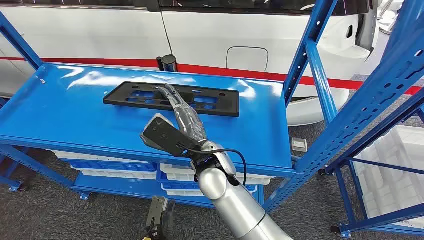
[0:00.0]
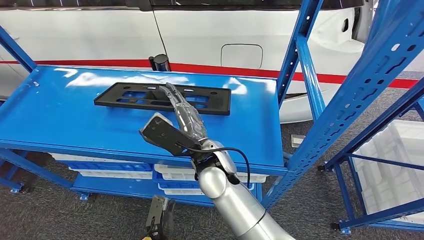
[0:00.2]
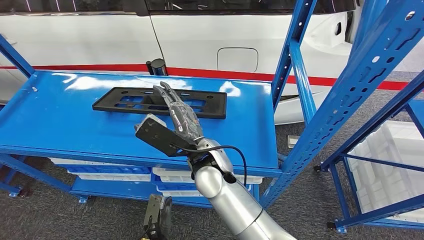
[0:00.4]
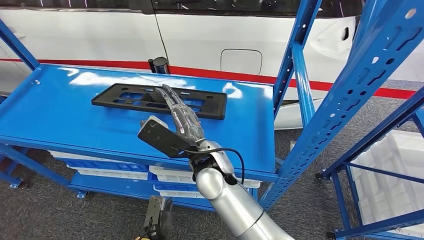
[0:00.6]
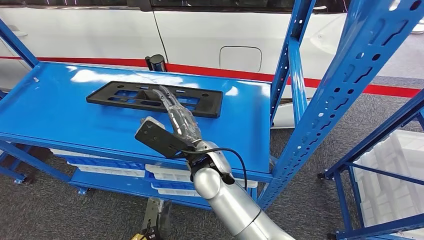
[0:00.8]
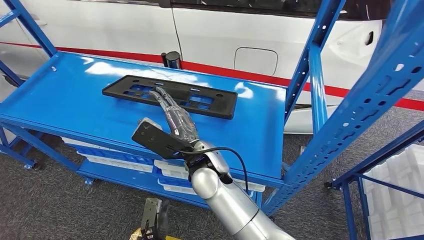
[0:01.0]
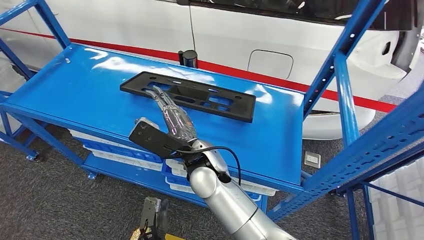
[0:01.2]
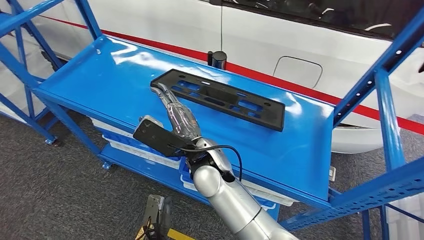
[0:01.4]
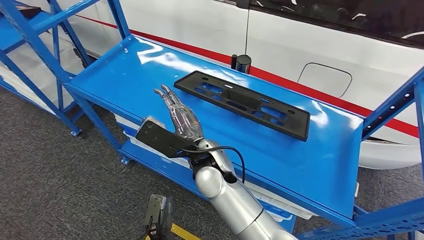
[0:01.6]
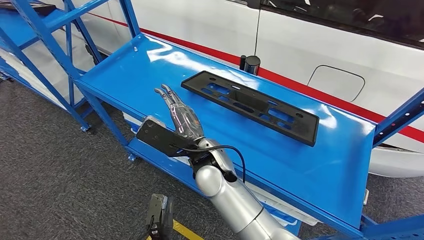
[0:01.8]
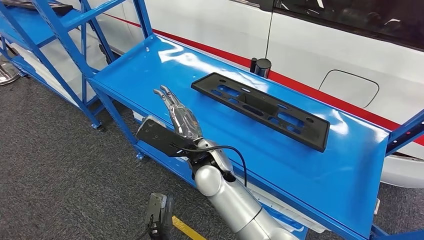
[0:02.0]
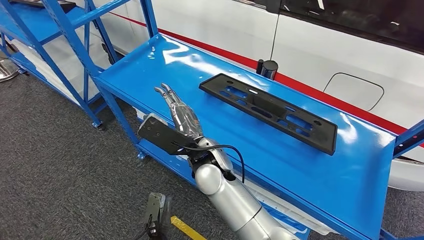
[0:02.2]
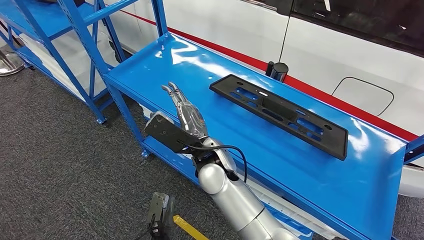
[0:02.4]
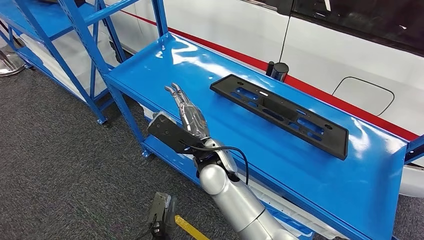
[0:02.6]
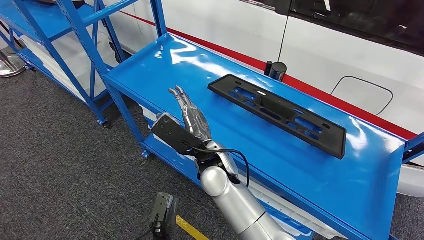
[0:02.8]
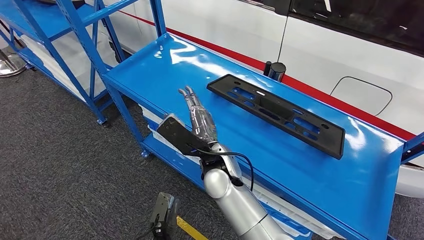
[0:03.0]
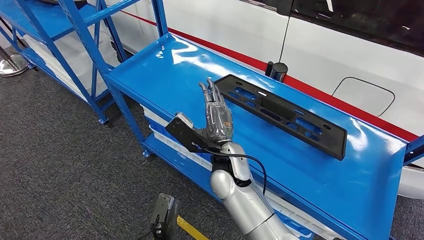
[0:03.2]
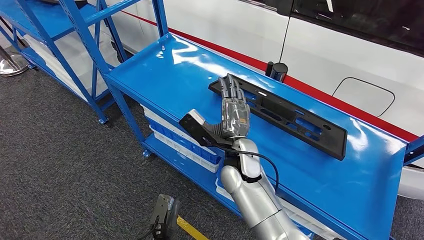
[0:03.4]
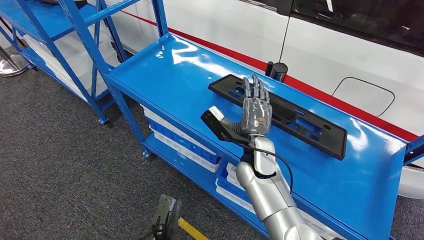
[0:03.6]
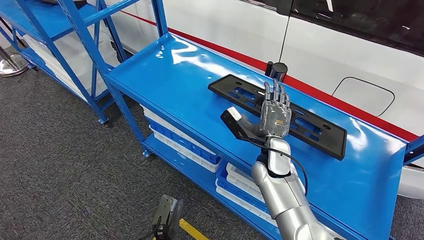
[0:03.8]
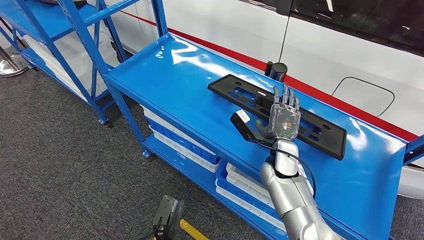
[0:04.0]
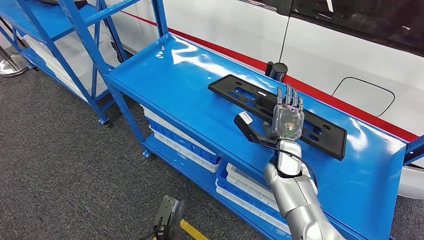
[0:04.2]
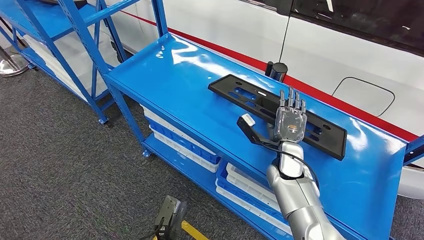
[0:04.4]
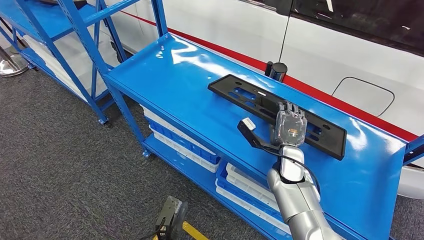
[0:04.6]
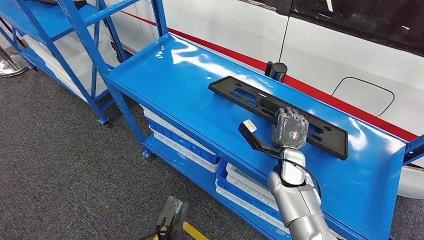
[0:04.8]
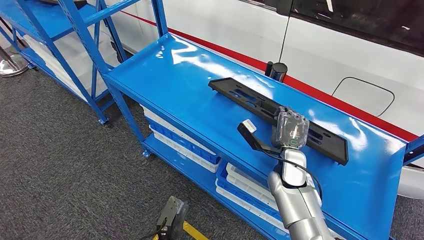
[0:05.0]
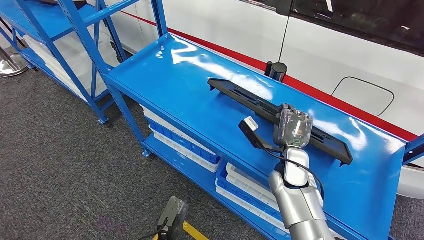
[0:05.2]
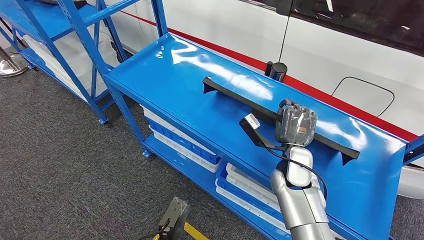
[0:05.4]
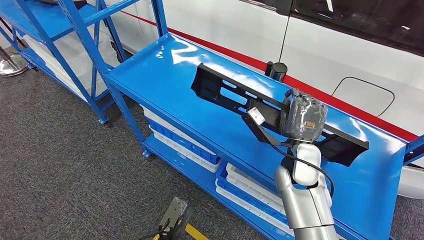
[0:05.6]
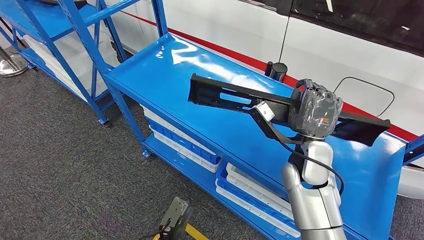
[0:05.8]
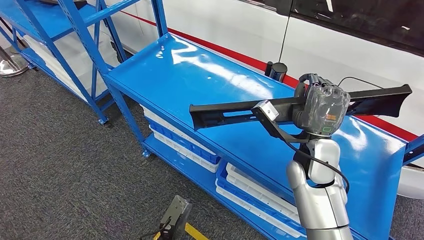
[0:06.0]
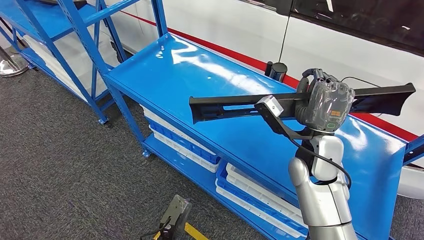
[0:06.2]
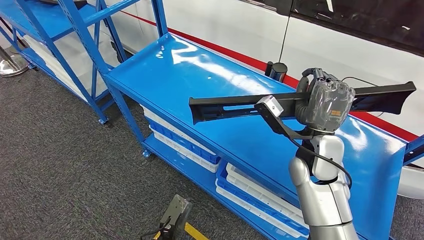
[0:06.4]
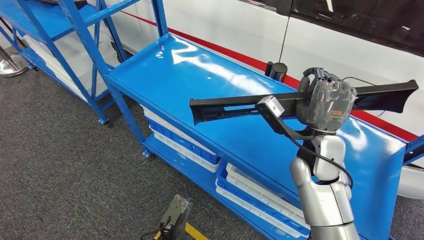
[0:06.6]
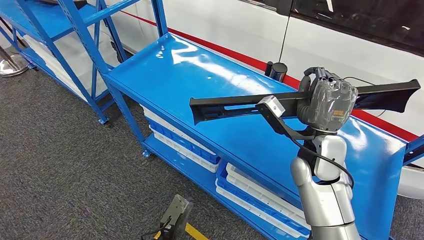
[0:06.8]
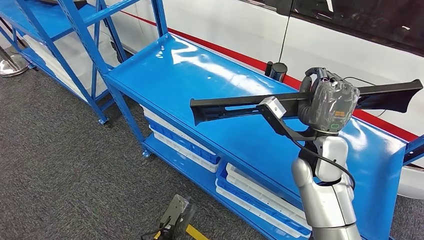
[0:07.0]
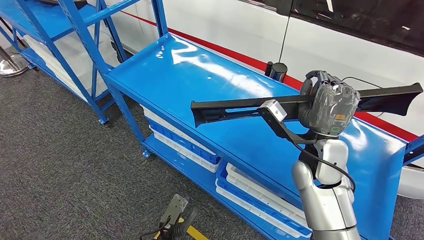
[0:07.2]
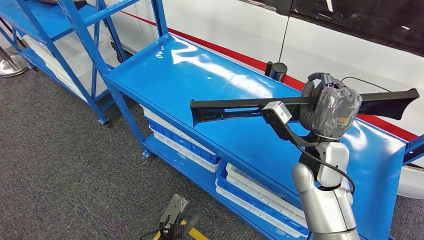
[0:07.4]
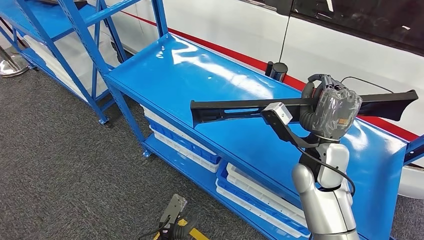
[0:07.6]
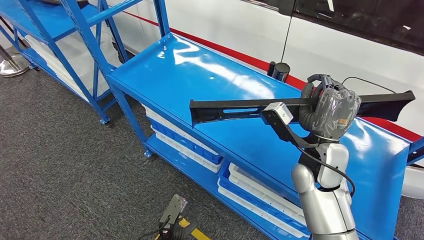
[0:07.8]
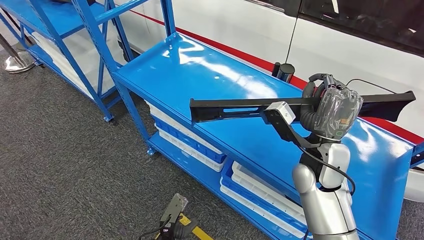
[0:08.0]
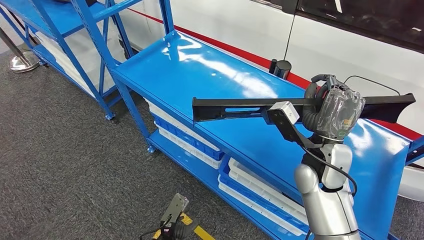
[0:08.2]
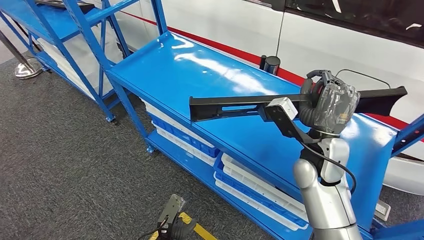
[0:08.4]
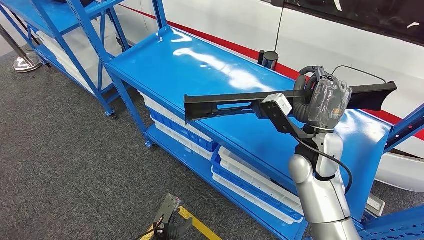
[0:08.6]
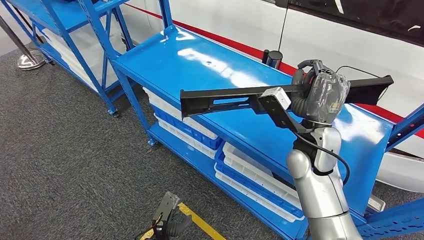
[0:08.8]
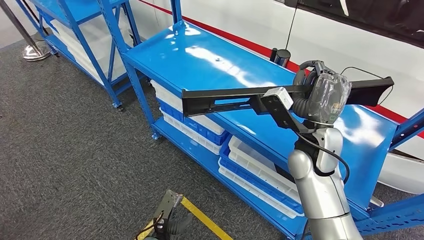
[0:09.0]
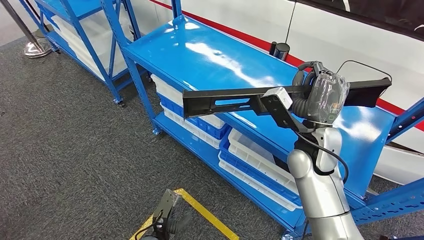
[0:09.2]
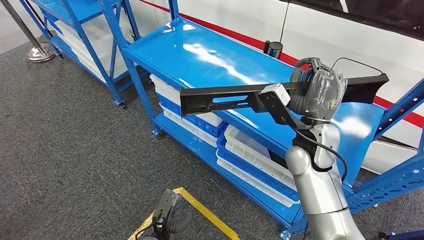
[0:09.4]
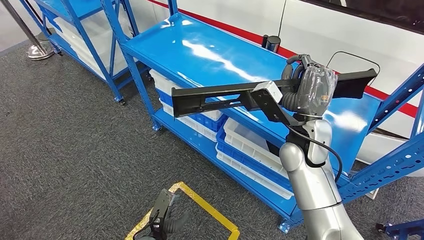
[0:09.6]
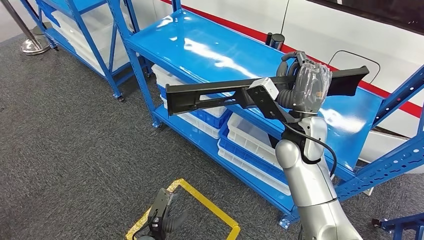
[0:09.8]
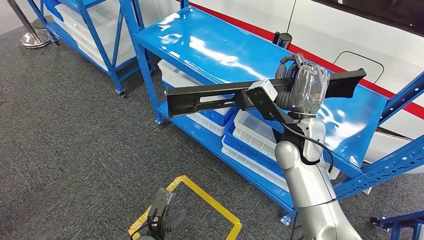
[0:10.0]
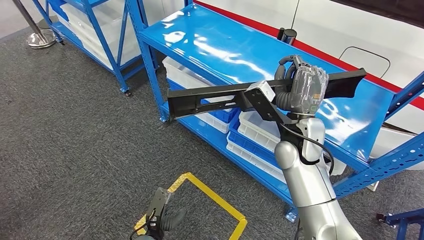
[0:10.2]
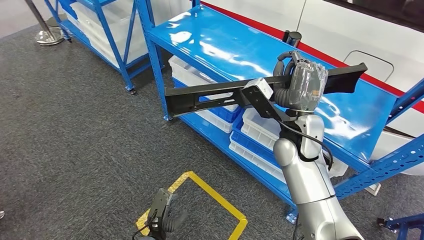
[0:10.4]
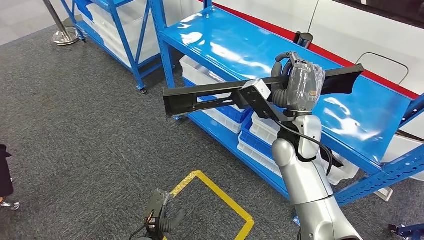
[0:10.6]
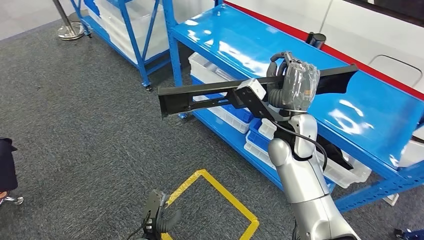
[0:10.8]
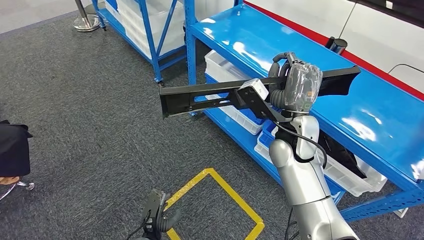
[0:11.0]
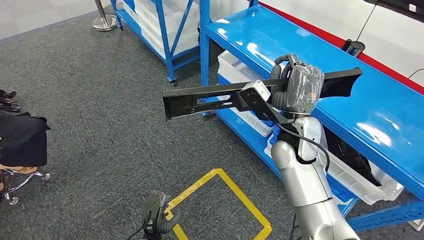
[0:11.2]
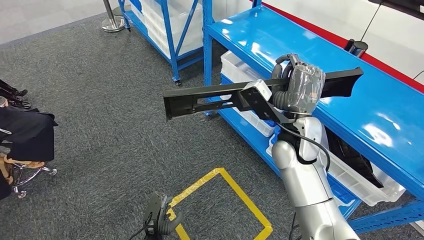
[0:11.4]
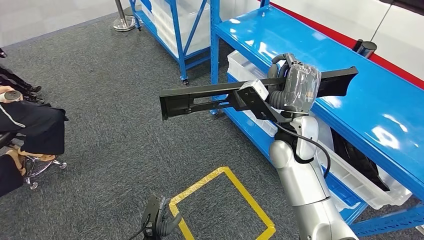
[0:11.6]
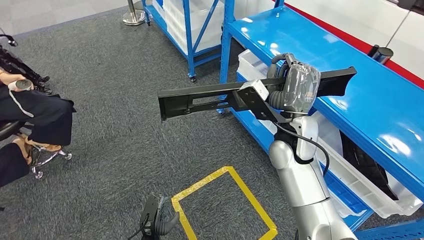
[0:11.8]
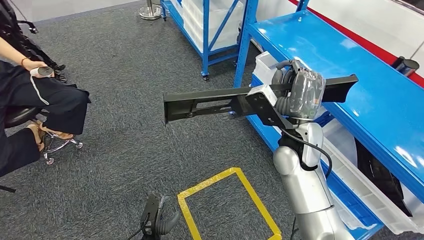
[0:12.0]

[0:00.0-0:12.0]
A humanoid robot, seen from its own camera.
Step, 0:00.0 to 0:07.6: Pick up the large material from the shelf.
0:03.0 to 0:04.4: The right hand moves to the right and forward, some 20 cm.
0:04.4 to 0:06.0: The right hand moves upward, about 10 cm.
0:06.0 to 0:07.6: The hands stay close to where they were, moving slightly.

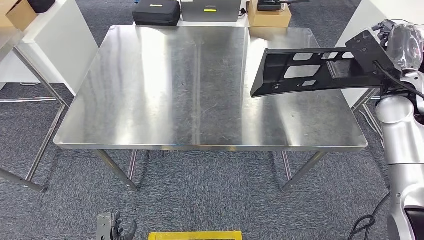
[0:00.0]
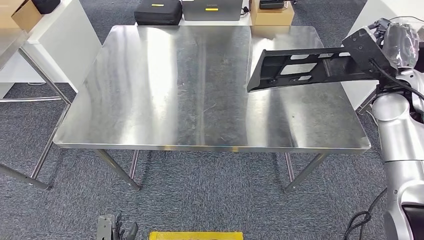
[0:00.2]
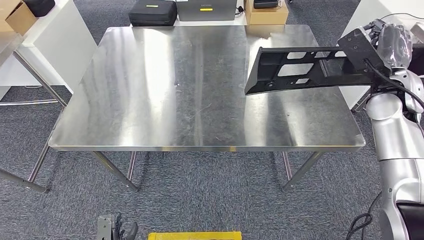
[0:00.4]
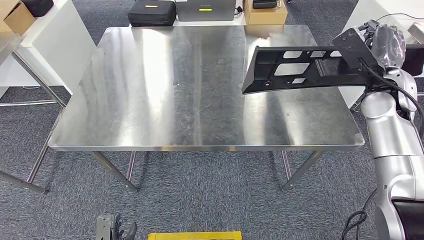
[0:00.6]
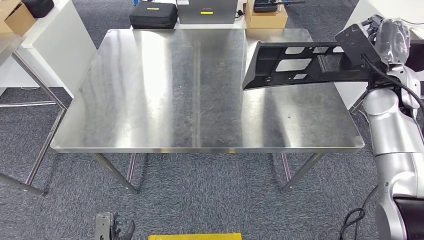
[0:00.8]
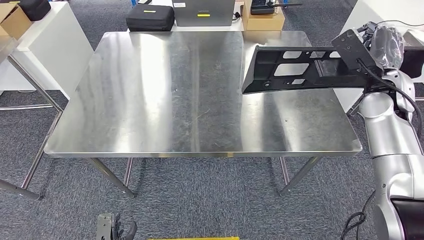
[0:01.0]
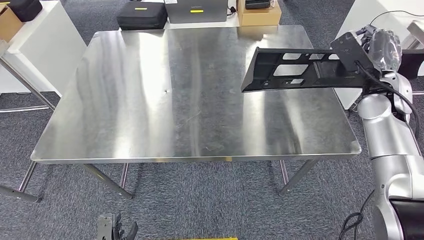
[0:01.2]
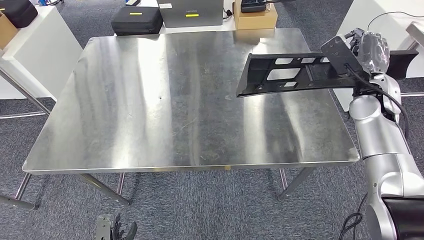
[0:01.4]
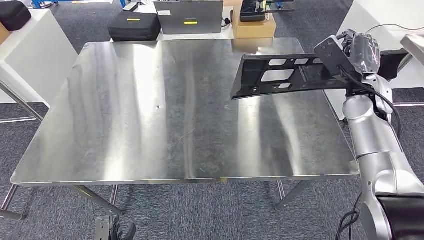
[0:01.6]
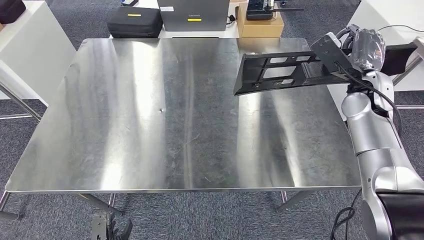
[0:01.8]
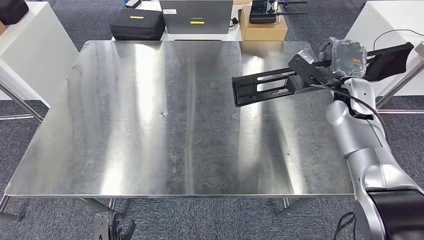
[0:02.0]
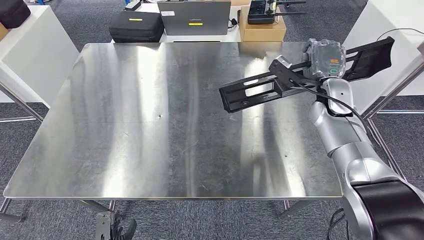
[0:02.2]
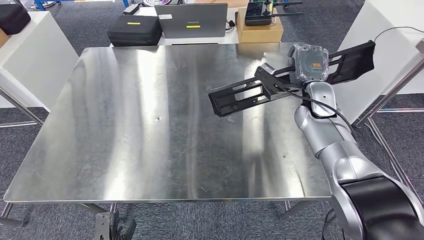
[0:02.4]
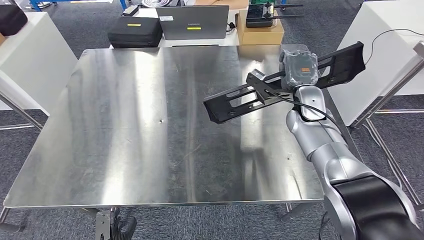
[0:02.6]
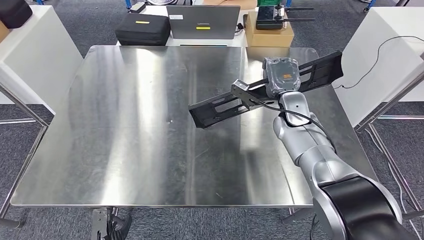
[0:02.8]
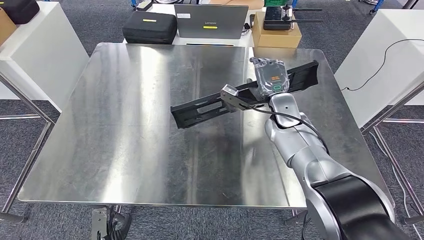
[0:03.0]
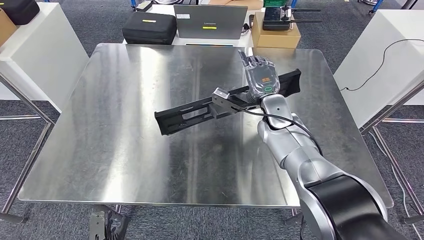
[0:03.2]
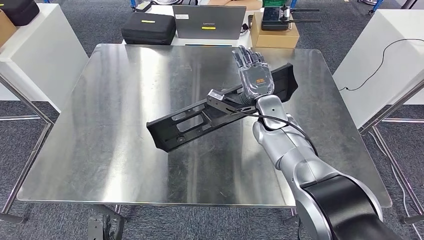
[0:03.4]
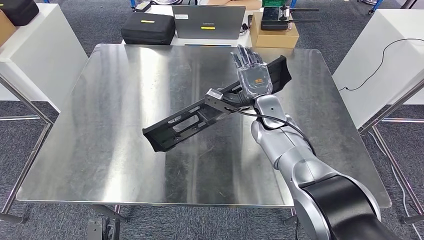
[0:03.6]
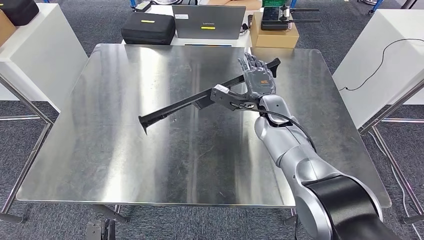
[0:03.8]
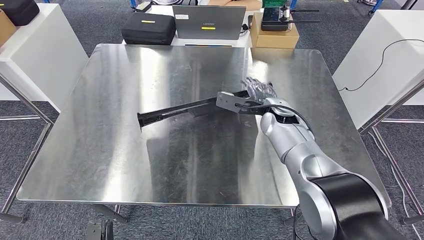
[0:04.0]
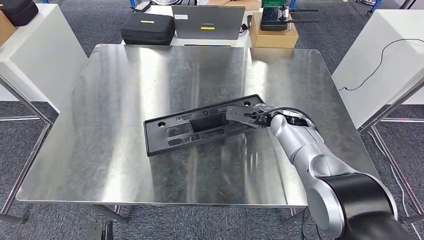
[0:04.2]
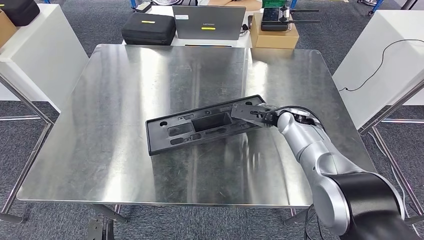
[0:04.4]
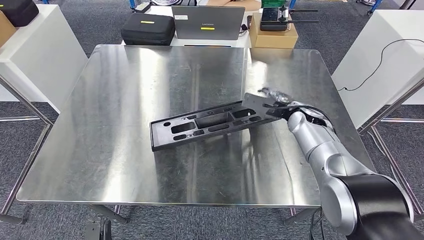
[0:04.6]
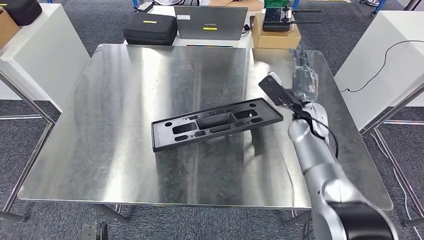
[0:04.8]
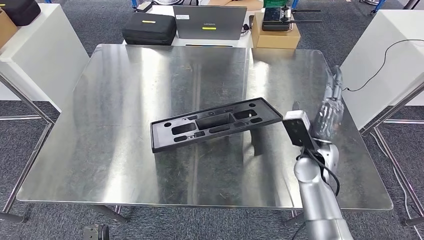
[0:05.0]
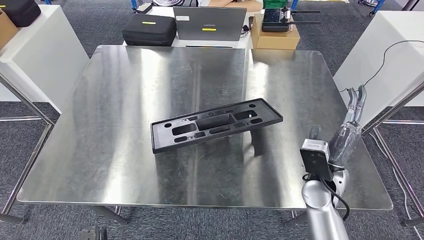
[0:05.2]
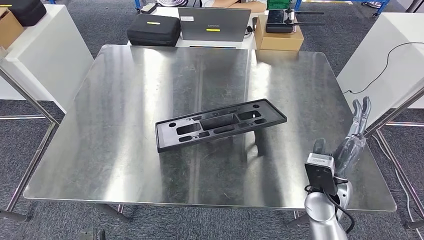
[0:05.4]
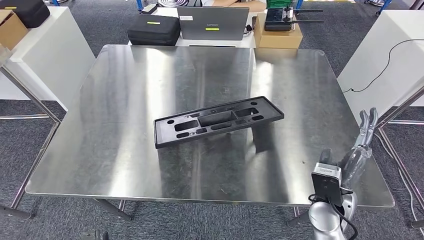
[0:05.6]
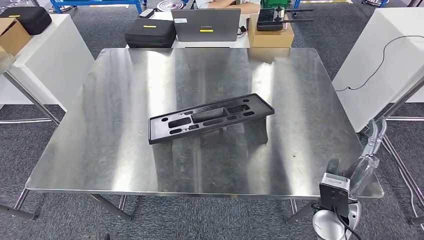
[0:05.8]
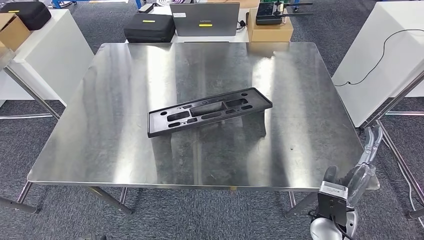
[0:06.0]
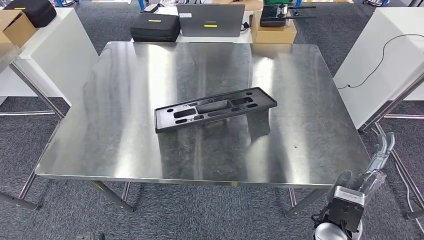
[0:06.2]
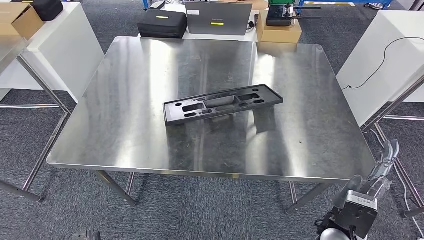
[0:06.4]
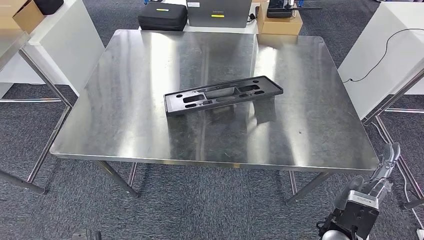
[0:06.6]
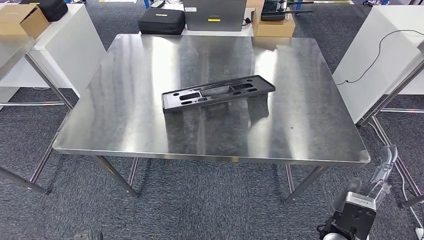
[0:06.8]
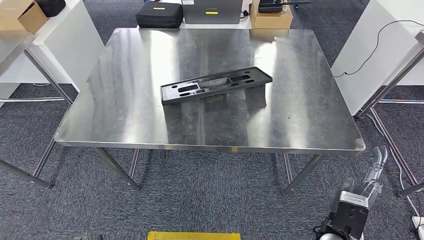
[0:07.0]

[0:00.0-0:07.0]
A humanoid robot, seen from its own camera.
Step, 0:00.0 to 0:06.4: Insert the large material into the corresponding hole on the workbench.
